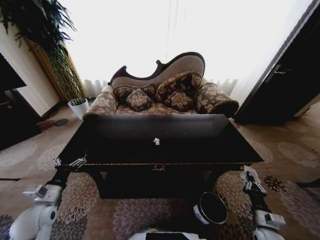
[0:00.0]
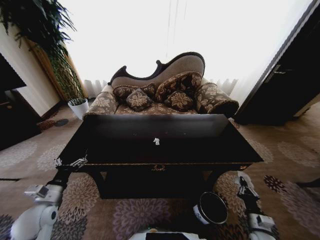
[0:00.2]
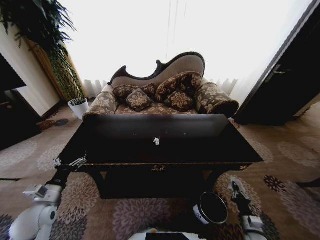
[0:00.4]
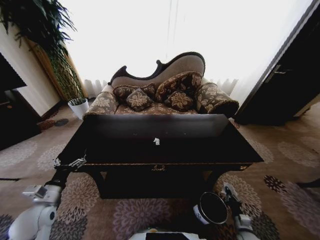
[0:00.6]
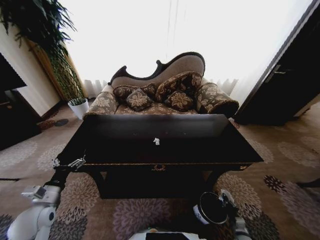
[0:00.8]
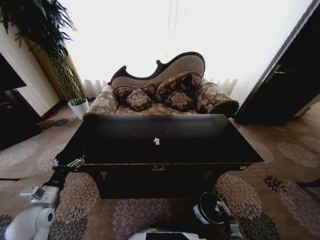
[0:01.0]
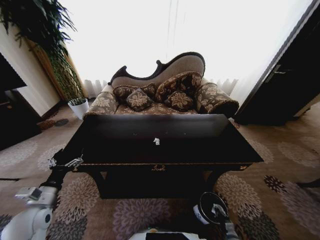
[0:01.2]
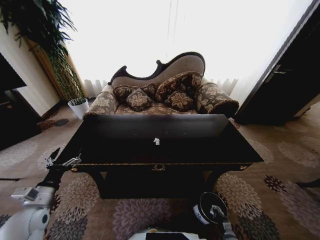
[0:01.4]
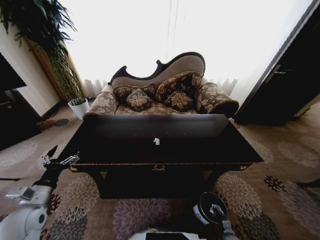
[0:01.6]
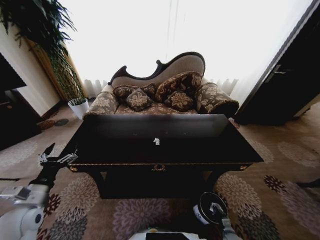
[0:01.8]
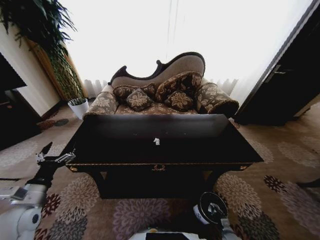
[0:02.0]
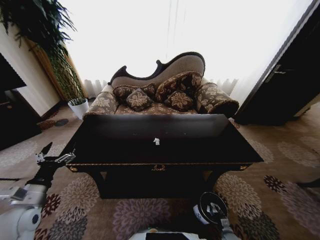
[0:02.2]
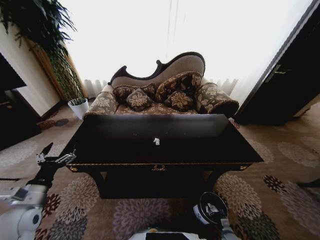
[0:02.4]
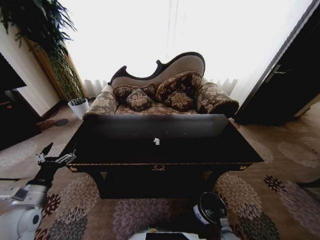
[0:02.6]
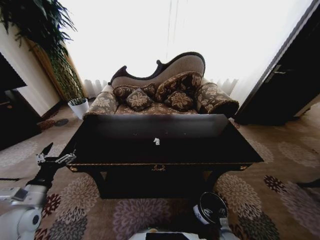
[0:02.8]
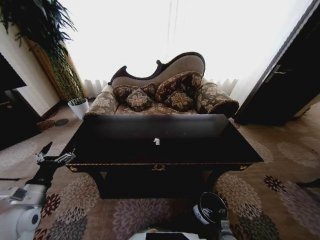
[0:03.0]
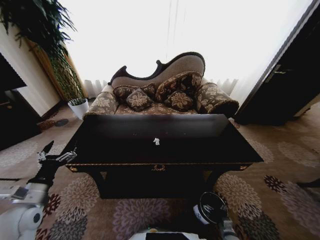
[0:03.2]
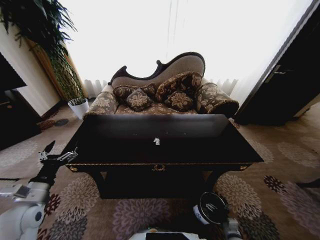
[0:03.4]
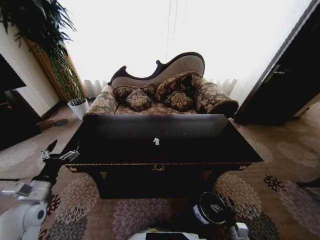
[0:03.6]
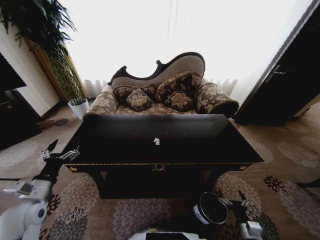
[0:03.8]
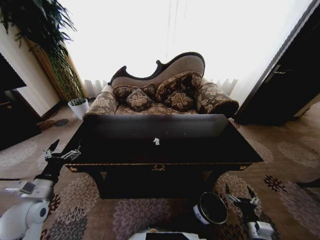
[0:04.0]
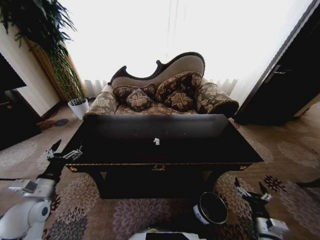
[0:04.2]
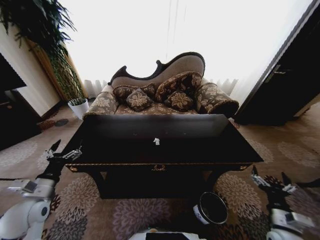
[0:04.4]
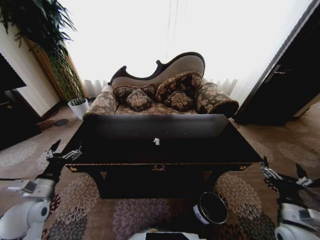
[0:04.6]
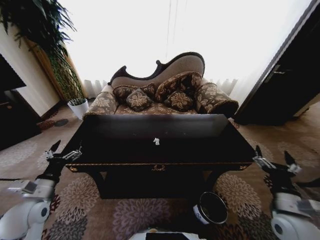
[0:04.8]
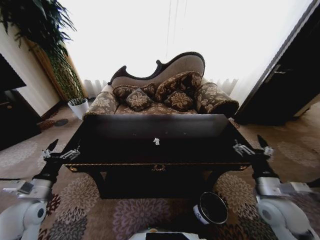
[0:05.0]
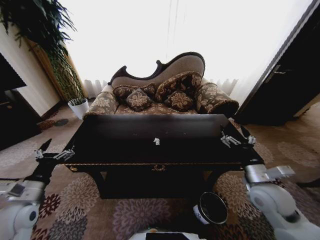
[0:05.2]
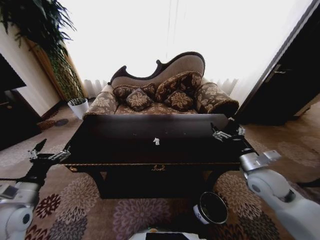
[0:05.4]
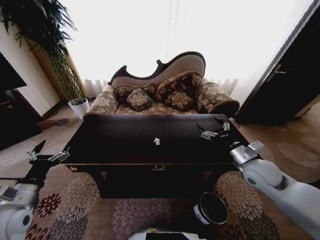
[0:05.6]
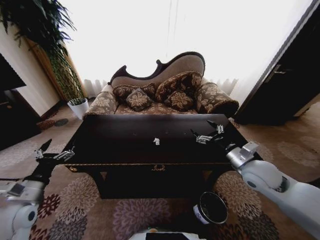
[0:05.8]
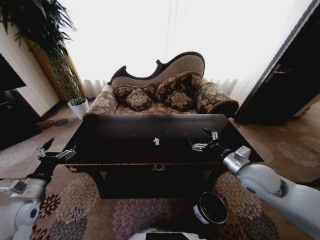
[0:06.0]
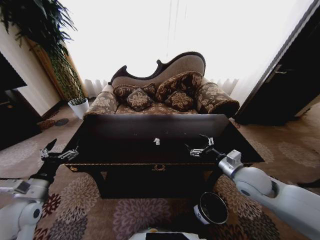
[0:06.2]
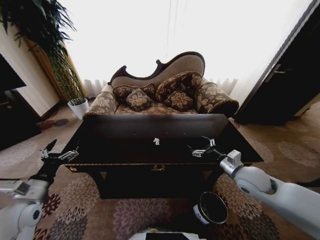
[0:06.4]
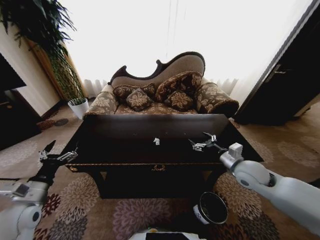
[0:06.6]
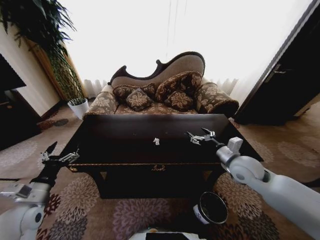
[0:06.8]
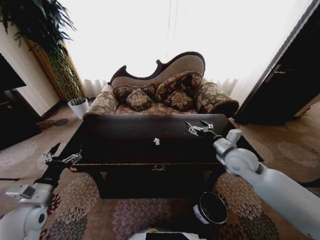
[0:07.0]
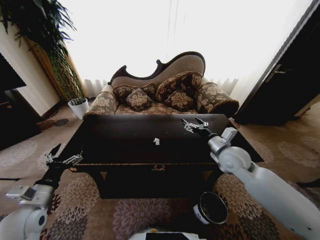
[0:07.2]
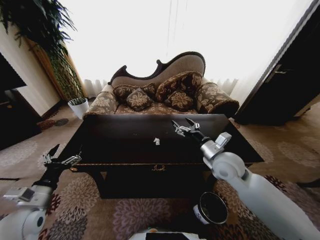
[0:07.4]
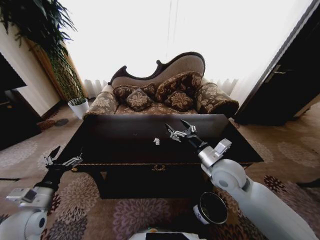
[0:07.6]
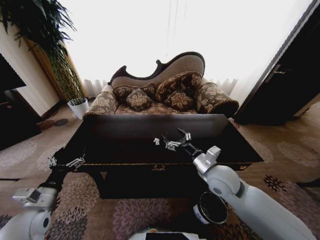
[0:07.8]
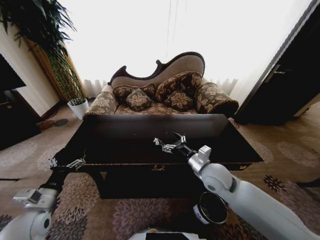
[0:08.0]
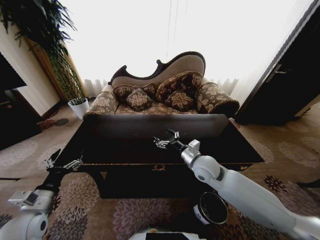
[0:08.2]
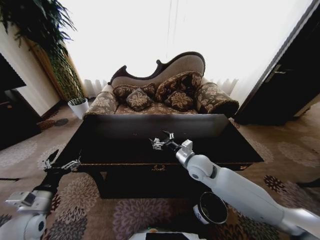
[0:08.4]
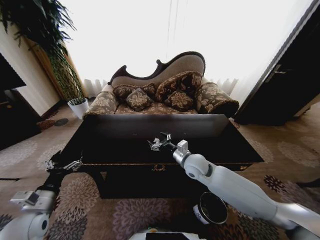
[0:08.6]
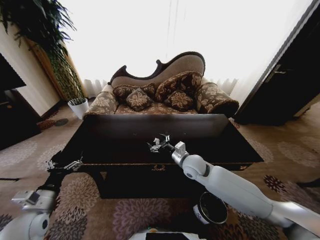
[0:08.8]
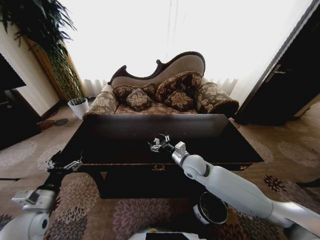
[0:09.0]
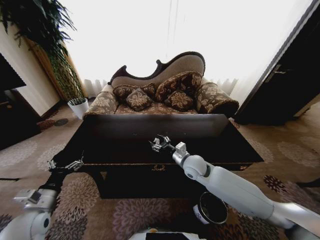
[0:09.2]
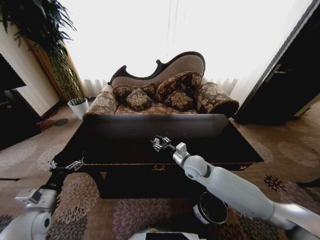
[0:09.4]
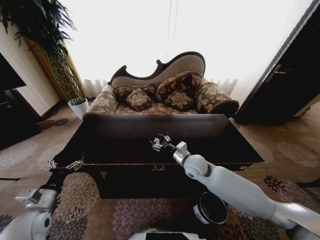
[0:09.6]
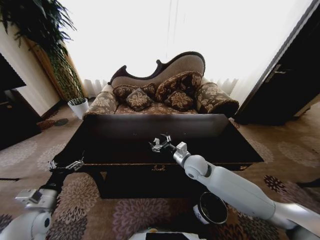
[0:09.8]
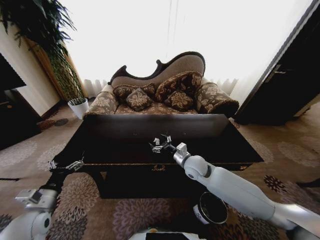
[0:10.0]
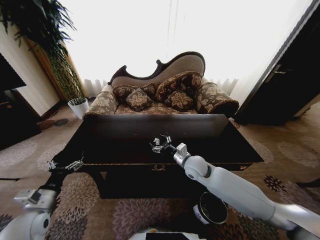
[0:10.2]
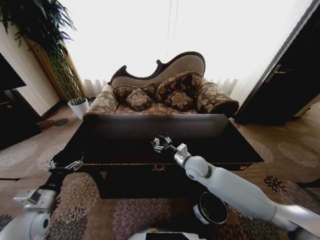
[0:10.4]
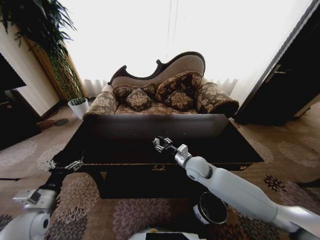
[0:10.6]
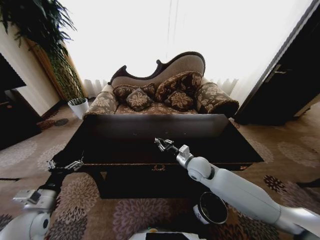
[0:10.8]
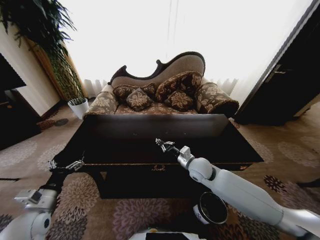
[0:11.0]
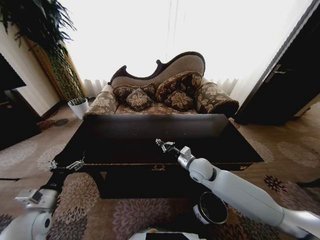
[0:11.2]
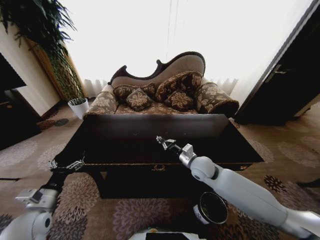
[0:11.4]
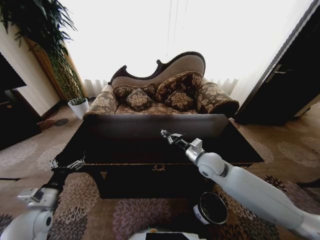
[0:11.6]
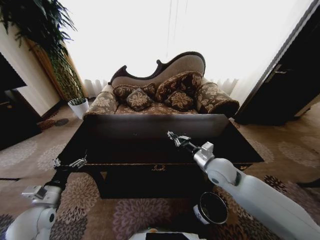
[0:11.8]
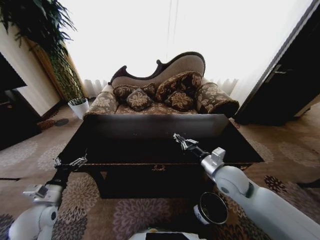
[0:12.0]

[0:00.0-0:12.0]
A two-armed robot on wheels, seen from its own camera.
Task of the whole recording: Move to the front of the table and place the trash on the table into the trash bin.
0:00.0 to 0:01.6: The right gripper heads downward, covering roughly 25 cm.
0:03.0 to 0:04.4: The right gripper heads upward, covering approximately 30 cm.
0:04.4 to 0:06.0: The right gripper is displaced upward, forward and to the left by about 25 cm.
0:06.0 to 0:07.6: The right gripper moves to the left, approximately 10 cm.
0:07.6 to 0:09.0: The right gripper goes roughly 15 cm downward, forward and to the left.
0:09.0 to 0:10.4: There are only small adjustments of the grippers.
0:10.4 to 0:12.0: The right gripper is displaced to the right, backward and upward by approximately 15 cm, and closes.

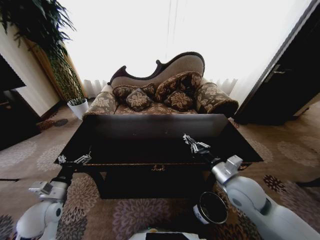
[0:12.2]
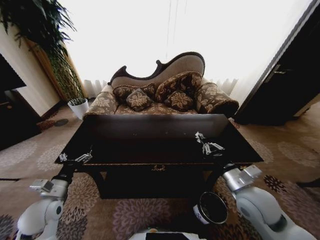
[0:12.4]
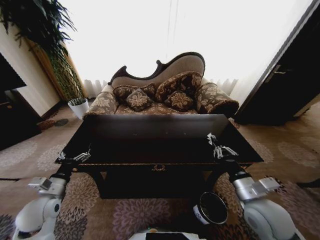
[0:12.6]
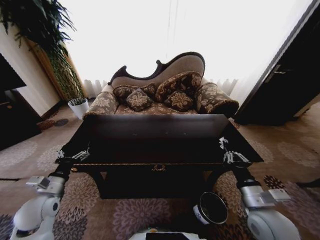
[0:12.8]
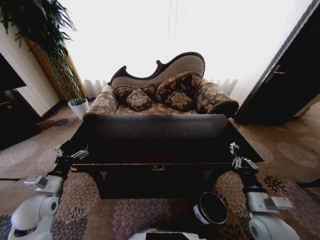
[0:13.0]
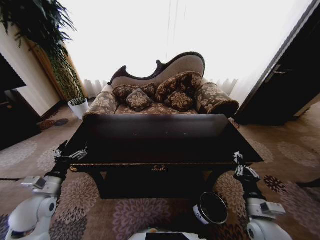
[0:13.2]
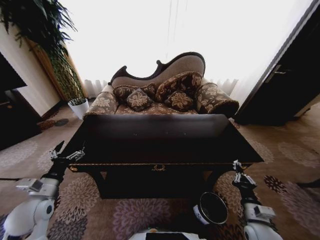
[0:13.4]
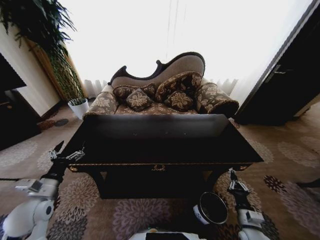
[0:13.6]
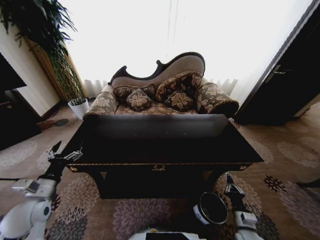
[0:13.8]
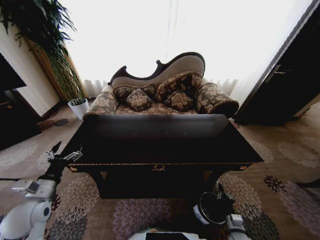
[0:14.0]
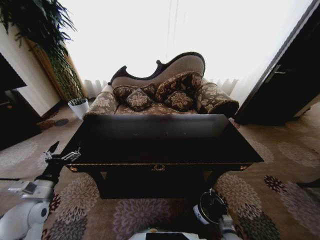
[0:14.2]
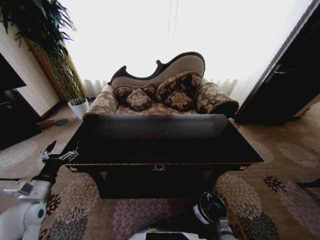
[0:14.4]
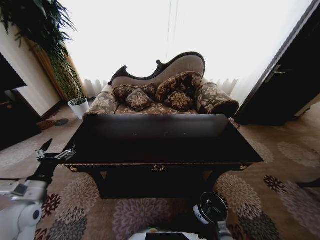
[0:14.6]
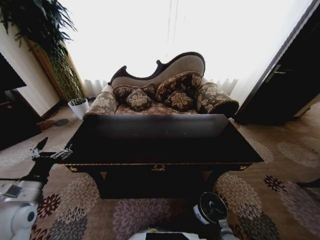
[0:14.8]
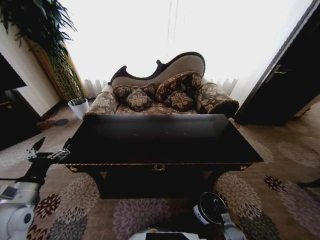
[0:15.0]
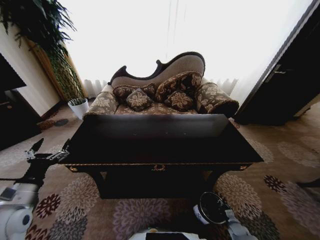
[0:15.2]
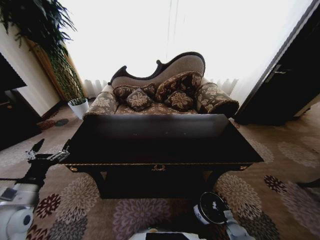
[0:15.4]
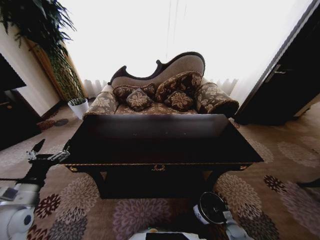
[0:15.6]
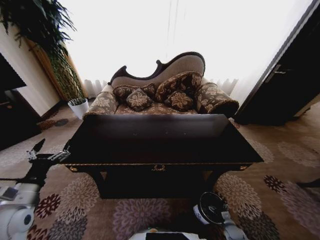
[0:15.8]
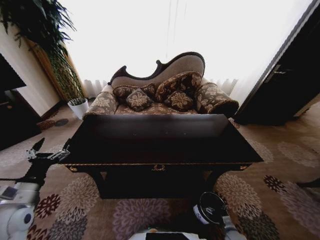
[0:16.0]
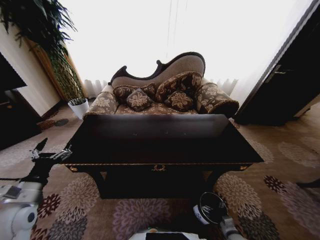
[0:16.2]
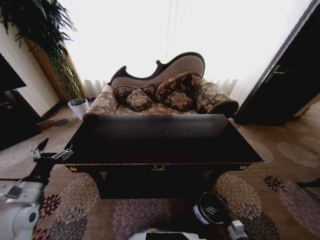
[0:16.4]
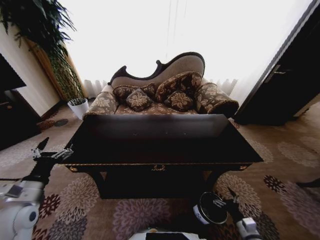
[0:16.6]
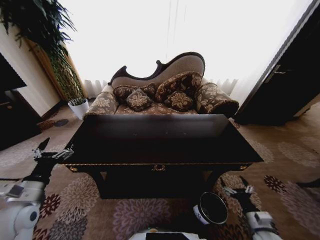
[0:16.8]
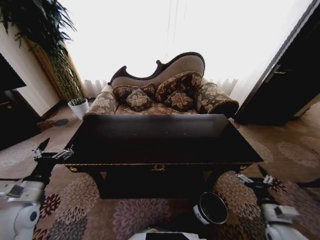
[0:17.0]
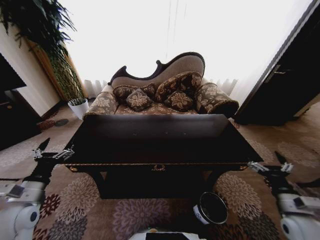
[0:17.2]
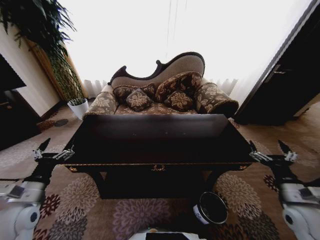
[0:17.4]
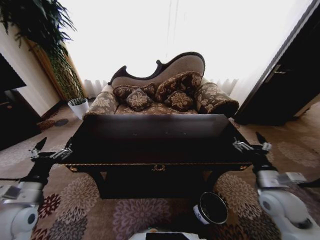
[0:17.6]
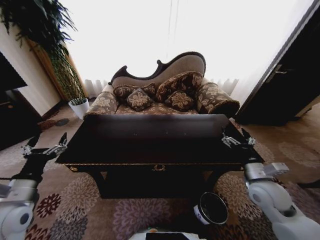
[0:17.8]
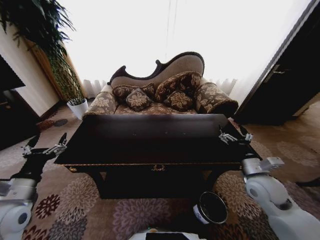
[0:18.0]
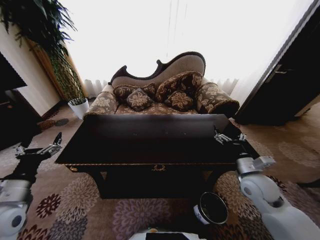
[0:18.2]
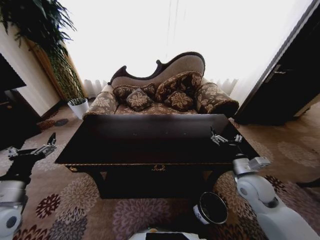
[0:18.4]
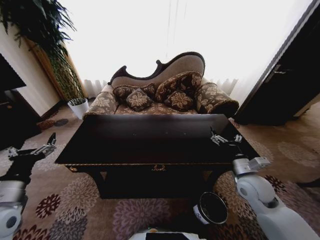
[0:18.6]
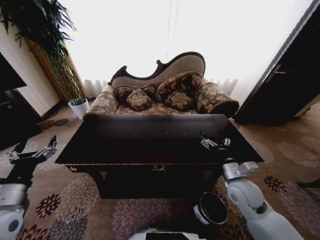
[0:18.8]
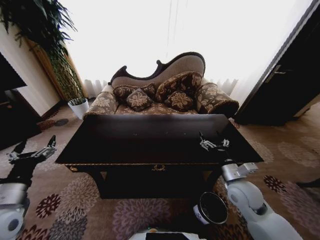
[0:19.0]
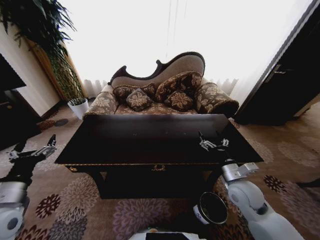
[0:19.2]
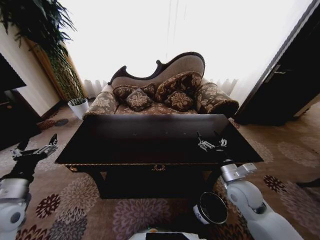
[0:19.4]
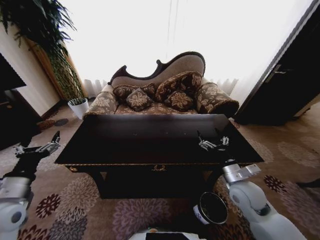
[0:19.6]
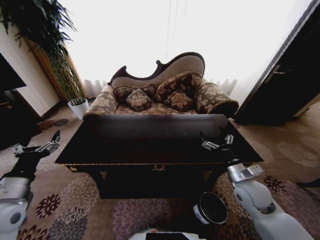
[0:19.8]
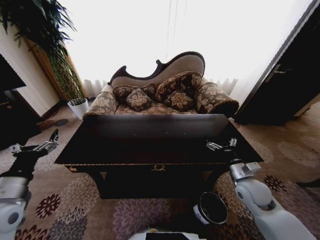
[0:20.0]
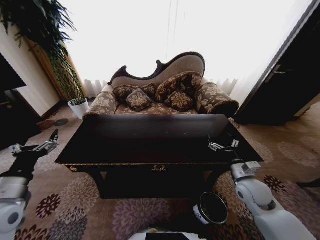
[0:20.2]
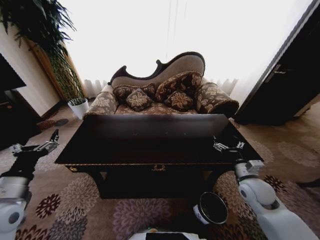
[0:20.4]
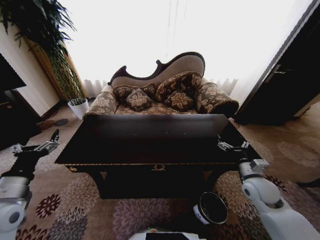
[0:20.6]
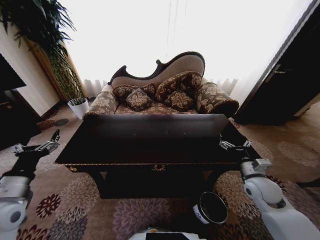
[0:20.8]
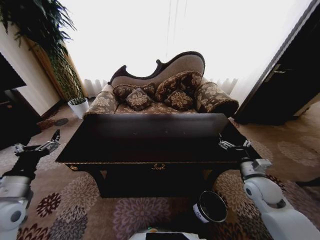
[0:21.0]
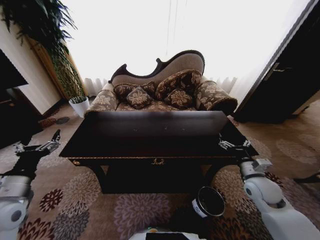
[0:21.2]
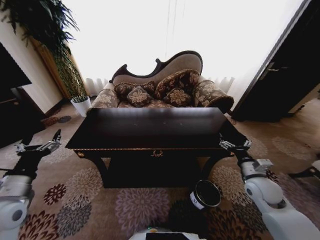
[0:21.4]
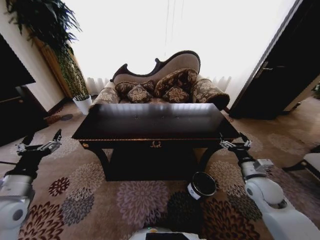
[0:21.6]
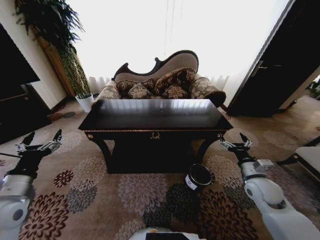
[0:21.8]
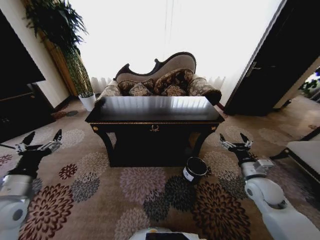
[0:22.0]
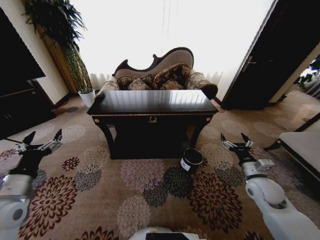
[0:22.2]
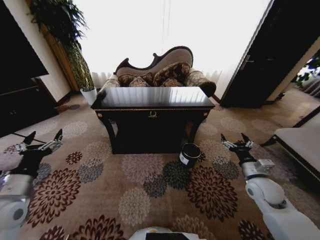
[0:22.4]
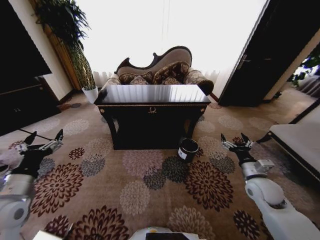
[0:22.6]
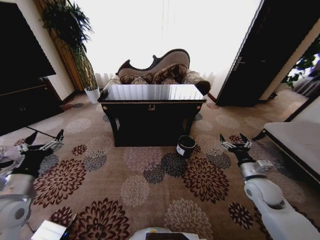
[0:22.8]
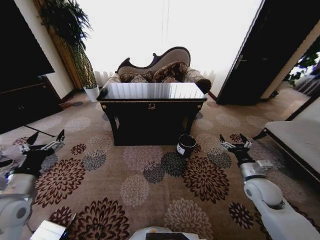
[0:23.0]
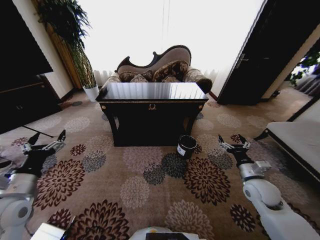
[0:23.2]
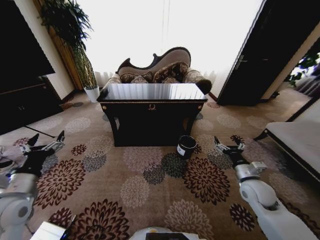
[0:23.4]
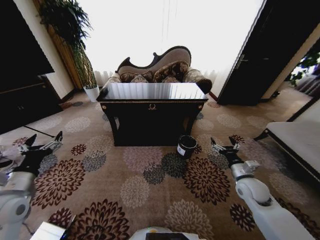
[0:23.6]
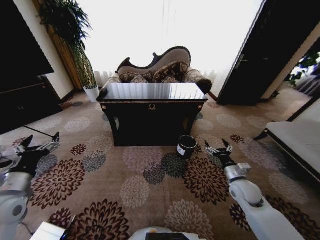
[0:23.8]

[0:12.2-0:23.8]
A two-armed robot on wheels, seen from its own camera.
Task of the whole recording: Move to the front of the table and place the trash on the table into the trash bin.
0:12.2 to 0:13.6: The right gripper moves downward, backward and to the right, approximately 25 cm.
0:13.6 to 0:15.0: The left gripper moves roughly 5 cm, while the right gripper shifts roughly 25 cm downward.
0:15.0 to 0:16.6: The right gripper goes approximately 20 cm upward, and opens.
0:16.6 to 0:18.0: The right gripper is displaced upward and forward by about 30 cm.
0:18.0 to 0:19.4: The right gripper travels to the left by roughly 5 cm.
0:19.4 to 0:21.0: The right gripper goes some 10 cm to the right.
0:22.4 to 0:23.8: The right gripper changes place by some 5 cm.
